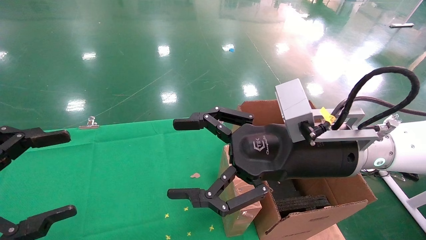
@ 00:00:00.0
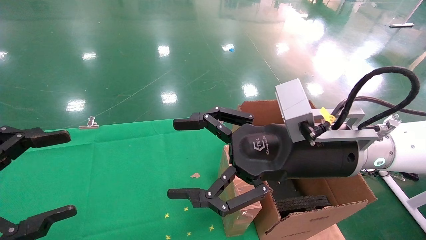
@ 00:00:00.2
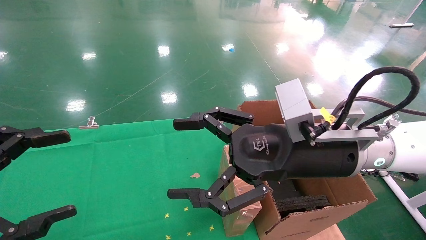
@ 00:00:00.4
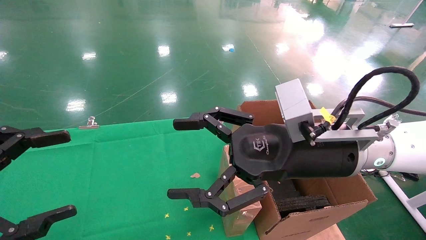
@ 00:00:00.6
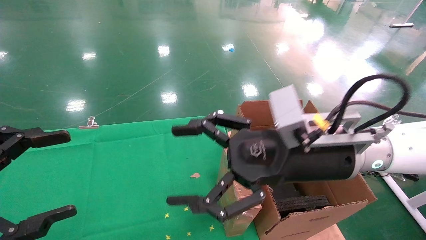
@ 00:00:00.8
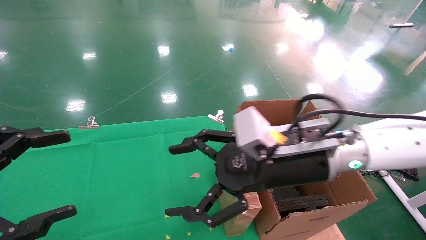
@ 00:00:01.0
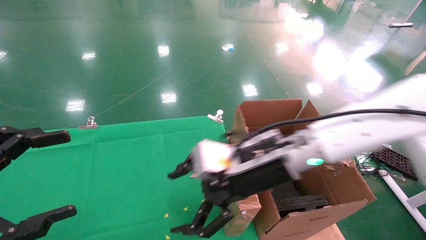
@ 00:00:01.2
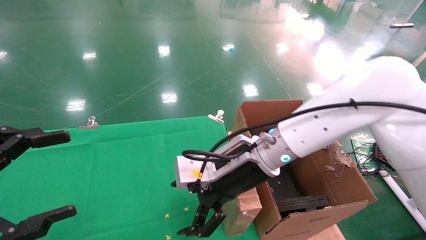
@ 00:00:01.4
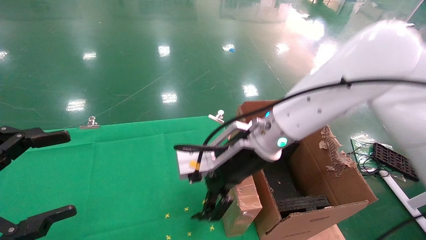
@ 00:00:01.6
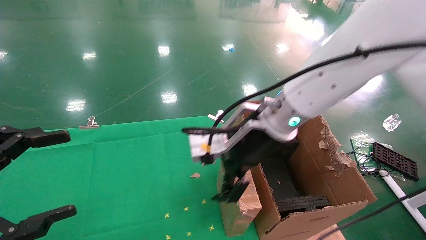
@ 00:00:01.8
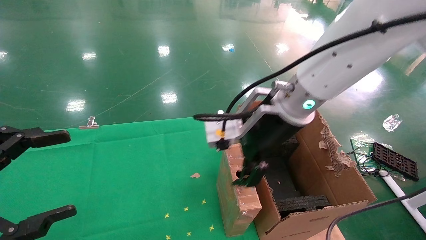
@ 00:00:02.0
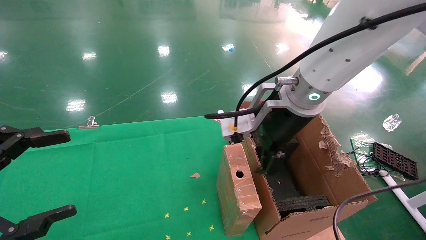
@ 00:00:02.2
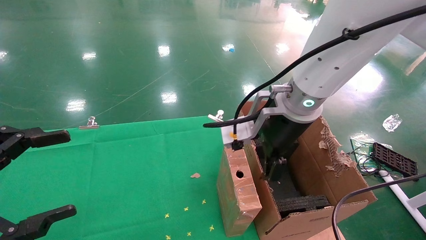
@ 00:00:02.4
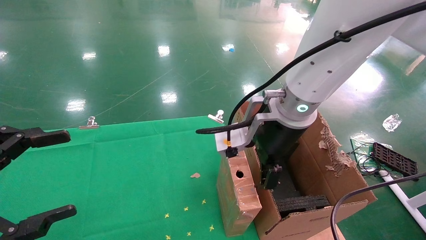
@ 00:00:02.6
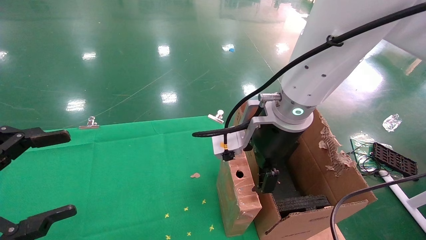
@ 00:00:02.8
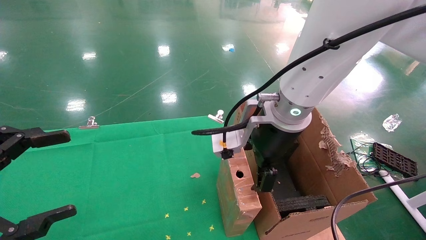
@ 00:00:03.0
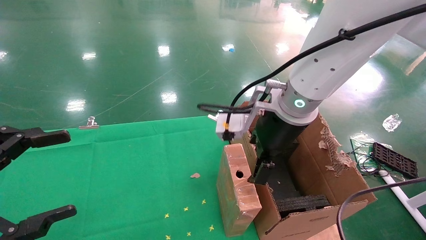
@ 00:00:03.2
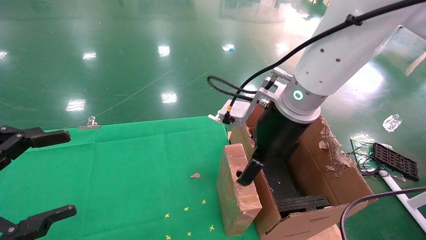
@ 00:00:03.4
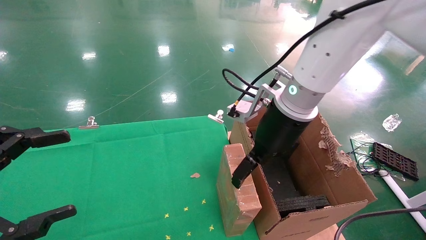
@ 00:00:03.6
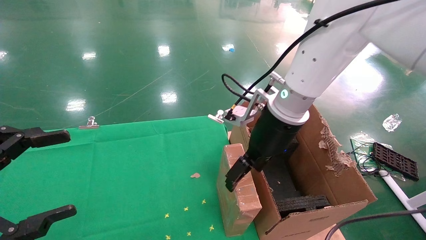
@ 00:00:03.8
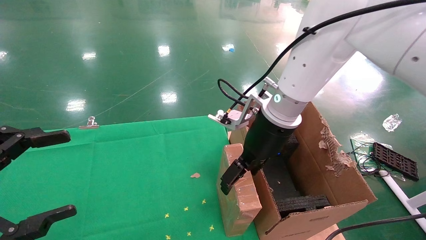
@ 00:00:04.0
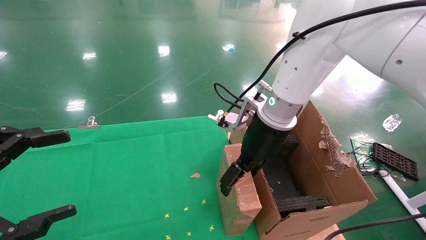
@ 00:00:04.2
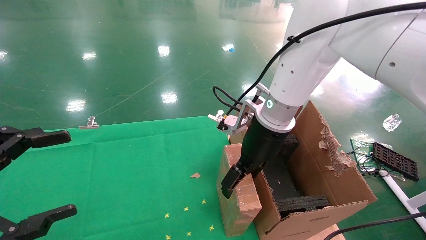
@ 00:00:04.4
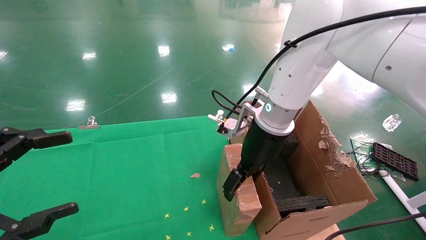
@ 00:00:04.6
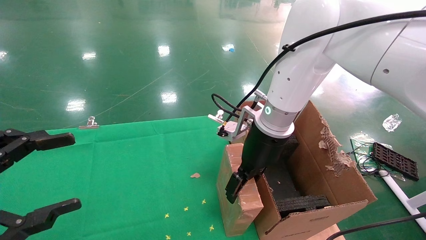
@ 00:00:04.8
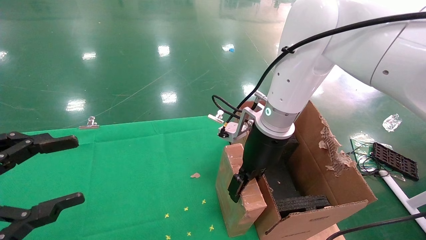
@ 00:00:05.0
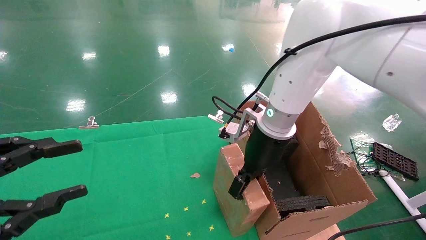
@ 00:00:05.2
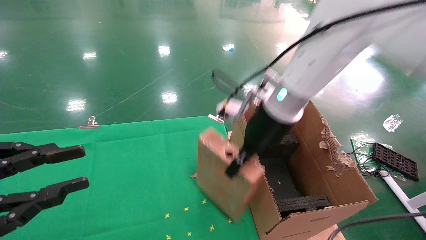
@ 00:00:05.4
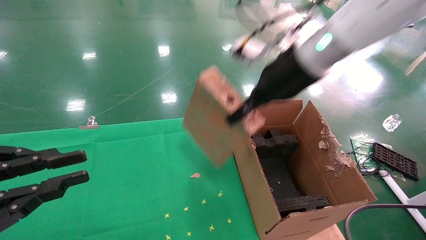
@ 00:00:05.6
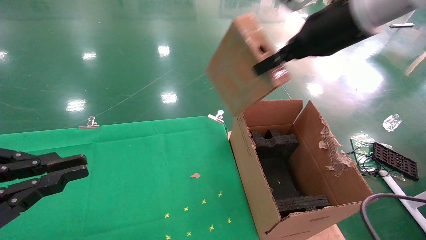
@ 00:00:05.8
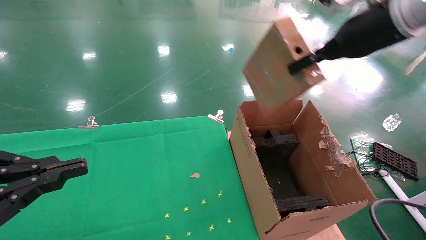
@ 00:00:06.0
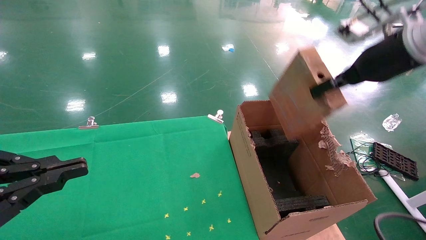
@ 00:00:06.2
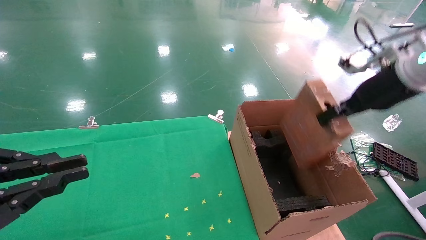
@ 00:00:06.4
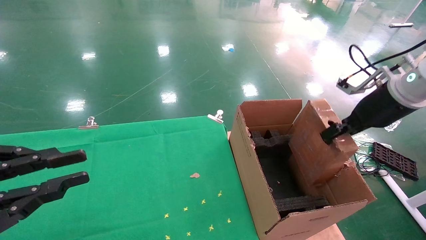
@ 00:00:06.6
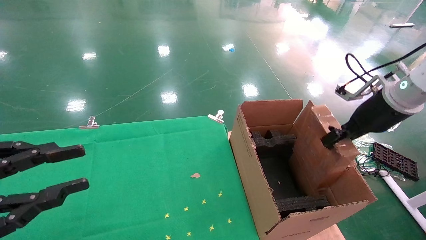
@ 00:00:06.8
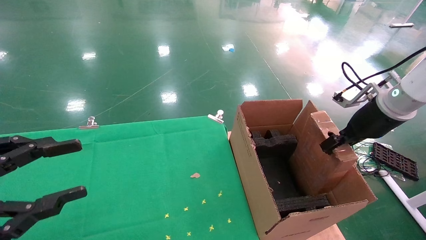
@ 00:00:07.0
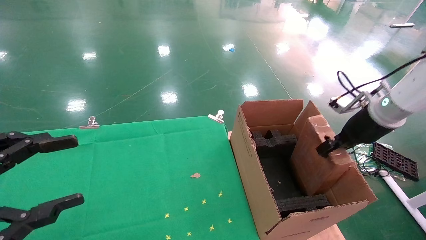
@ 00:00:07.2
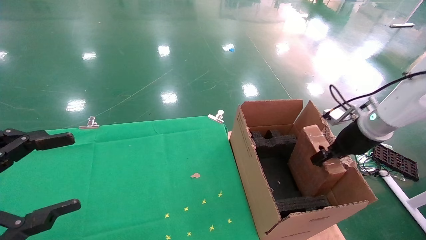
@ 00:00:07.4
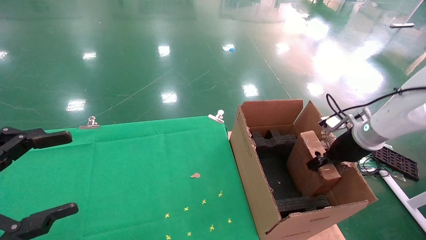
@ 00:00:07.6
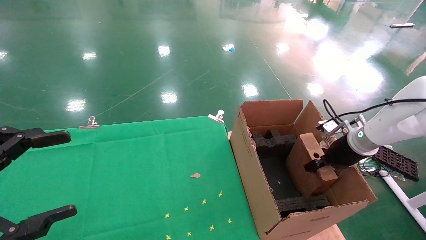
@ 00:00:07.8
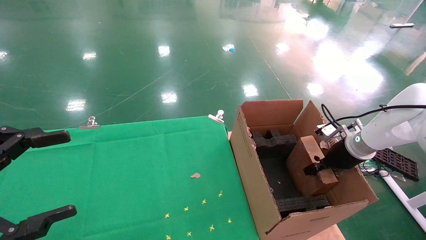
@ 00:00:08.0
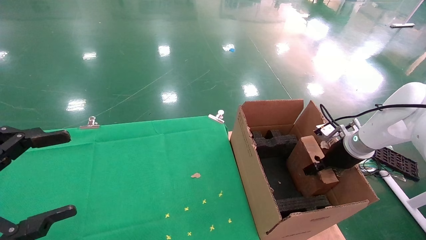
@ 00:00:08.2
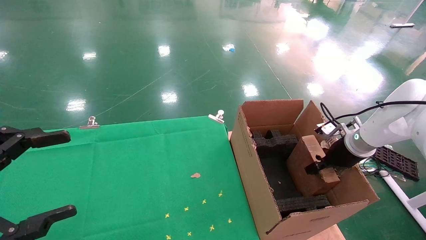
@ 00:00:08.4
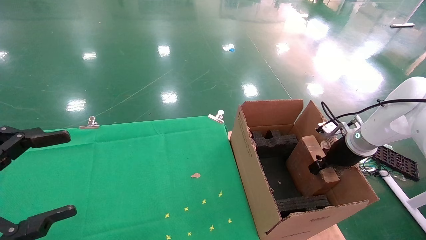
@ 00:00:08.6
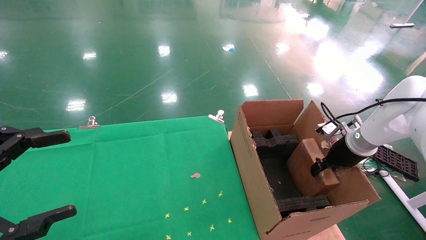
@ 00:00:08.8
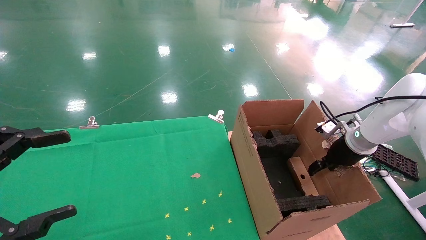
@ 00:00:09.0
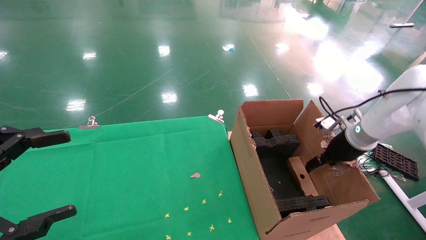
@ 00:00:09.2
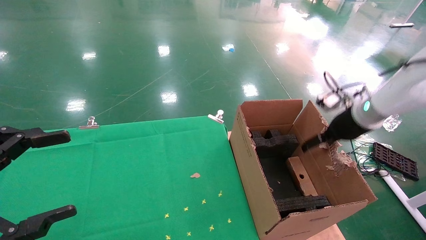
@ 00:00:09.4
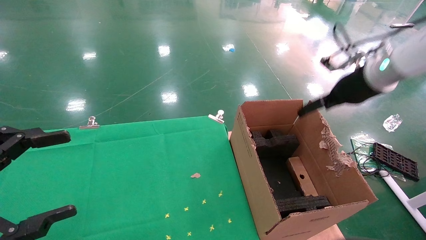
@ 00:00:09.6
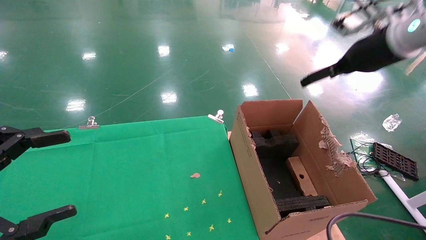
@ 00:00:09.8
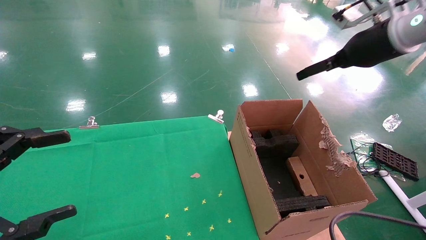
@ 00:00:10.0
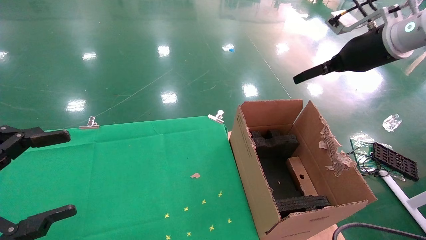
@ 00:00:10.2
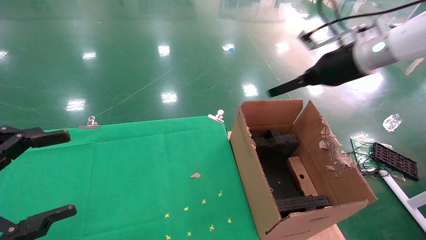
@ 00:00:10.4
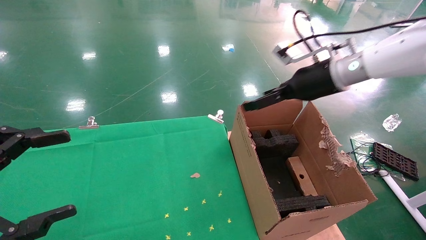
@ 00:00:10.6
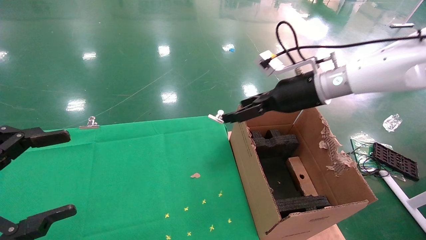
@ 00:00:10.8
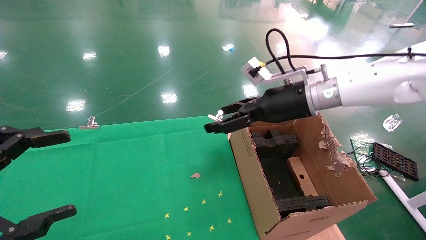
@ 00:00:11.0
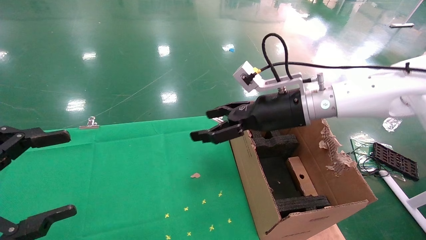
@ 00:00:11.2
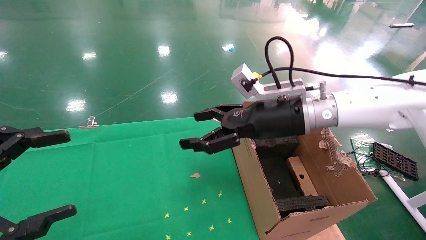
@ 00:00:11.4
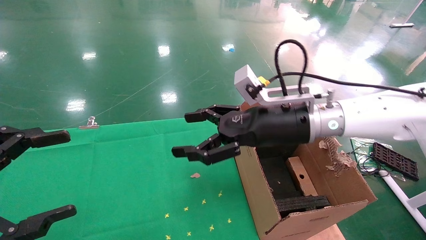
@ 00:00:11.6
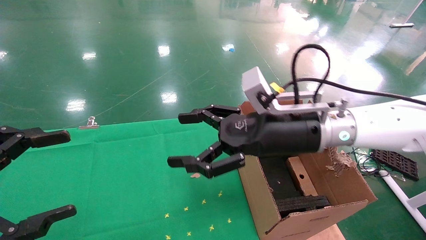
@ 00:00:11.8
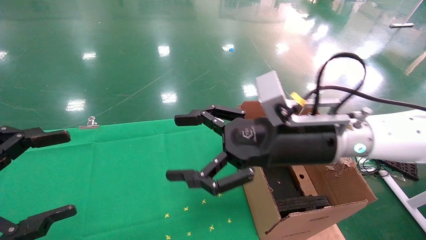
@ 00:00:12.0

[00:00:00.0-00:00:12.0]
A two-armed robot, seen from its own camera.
Task of the whole recording: using a robotic arm to pick up a cardboard box and palace it the carton.
Step, 00:00:01.0 to 00:00:05.2: Pick up the mouse and the power cord paper box.
Step, 00:00:05.4 to 00:00:09.2: Place the mouse and the power cord paper box into the container.
00:00:00.0 to 00:00:01.6: The right gripper travels forward and to the left by approximately 10 cm.
00:00:01.6 to 00:00:03.0: The right gripper changes place by some 5 cm.
00:00:03.0 to 00:00:04.4: The right gripper shifts by roughly 5 cm.
00:00:04.4 to 00:00:06.0: The left gripper closes; the right gripper travels to the right and upward by some 20 cm, and closes.
00:00:06.0 to 00:00:07.6: The right gripper goes some 25 cm downward and to the right; the left gripper opens up.
00:00:07.6 to 00:00:09.0: The right gripper opens up.
00:00:09.0 to 00:00:10.4: The right gripper is displaced upward and to the left by roughly 20 cm, and opens its fingers.
00:00:10.4 to 00:00:12.0: The right gripper goes approximately 20 cm to the left, backward and downward.

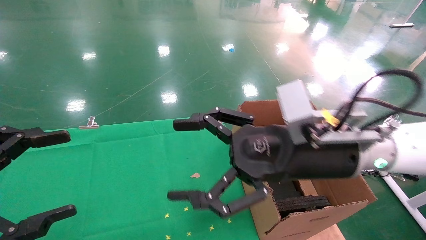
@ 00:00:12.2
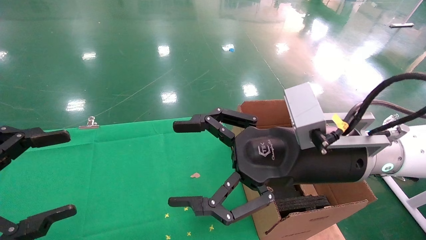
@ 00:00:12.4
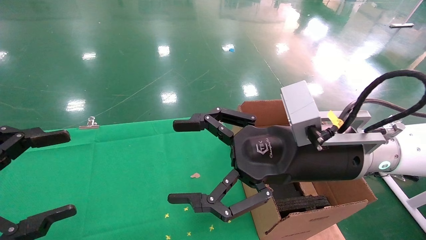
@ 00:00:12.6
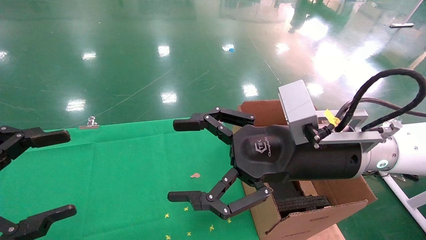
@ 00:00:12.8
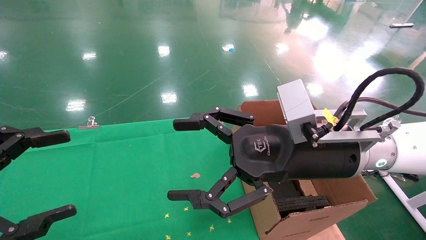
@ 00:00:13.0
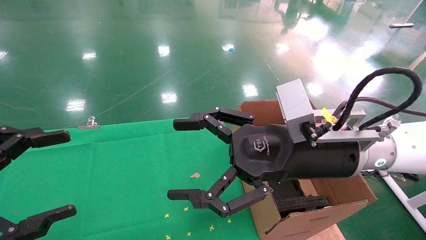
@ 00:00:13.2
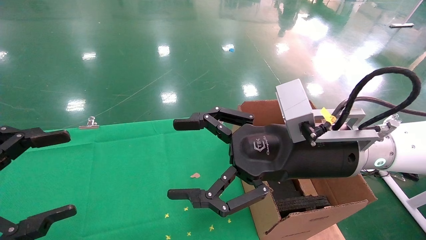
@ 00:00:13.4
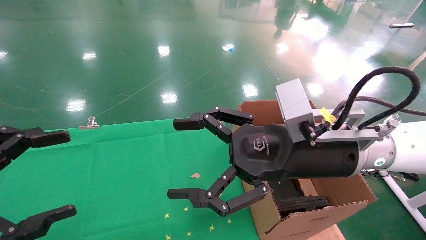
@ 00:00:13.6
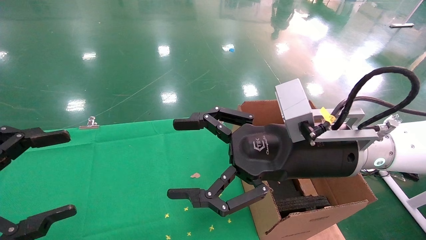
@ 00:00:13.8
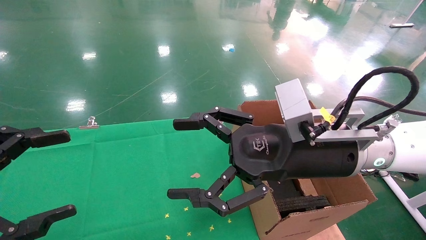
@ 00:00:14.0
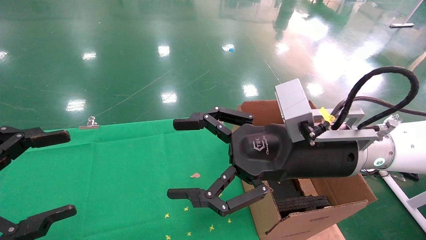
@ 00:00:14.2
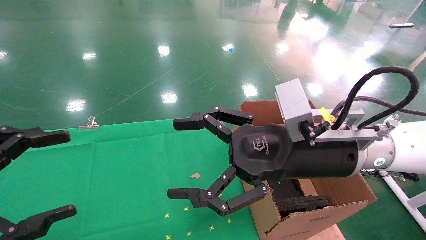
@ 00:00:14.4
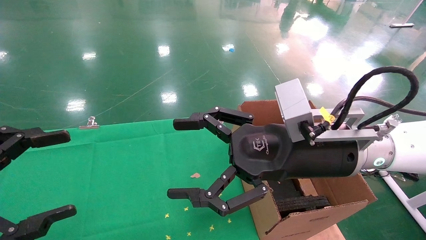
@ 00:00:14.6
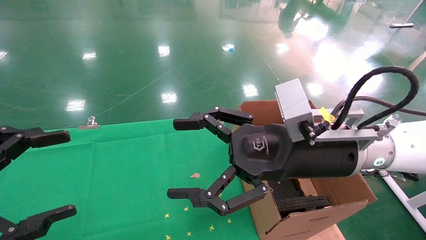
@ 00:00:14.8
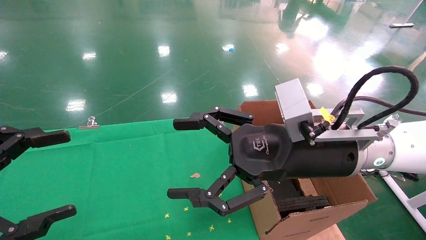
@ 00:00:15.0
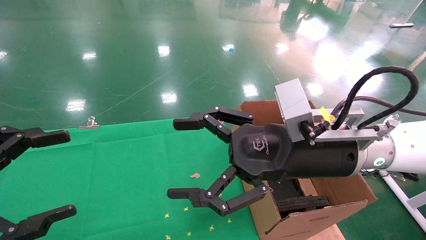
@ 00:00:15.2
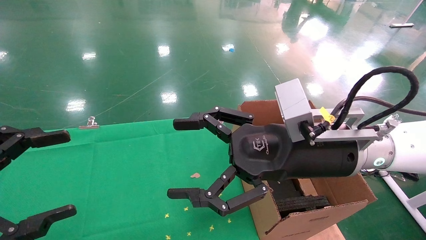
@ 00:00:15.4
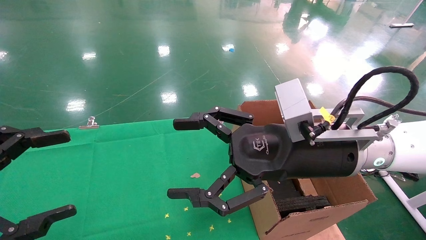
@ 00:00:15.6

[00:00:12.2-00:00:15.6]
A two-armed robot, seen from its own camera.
Task of the whole recording: using a robotic arm to pick up a cardboard box and palace it the carton.
00:00:12.2 to 00:00:15.6: Both grippers stay about where they are.
